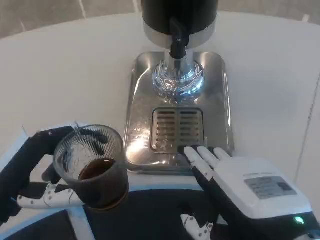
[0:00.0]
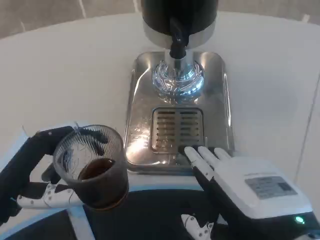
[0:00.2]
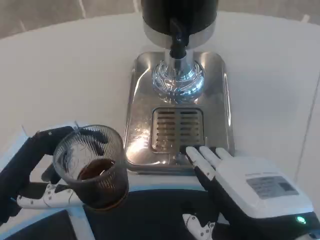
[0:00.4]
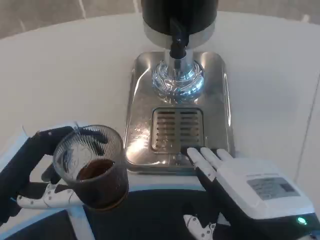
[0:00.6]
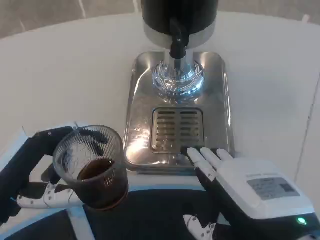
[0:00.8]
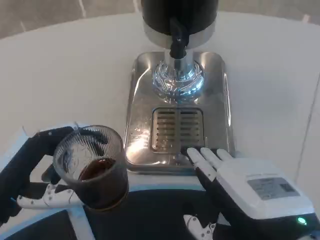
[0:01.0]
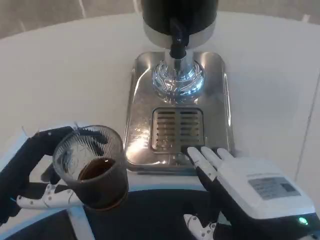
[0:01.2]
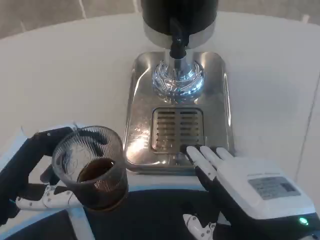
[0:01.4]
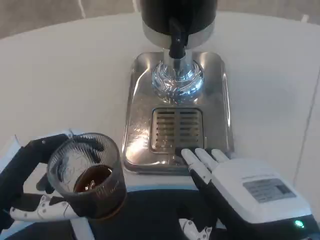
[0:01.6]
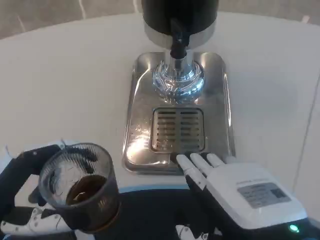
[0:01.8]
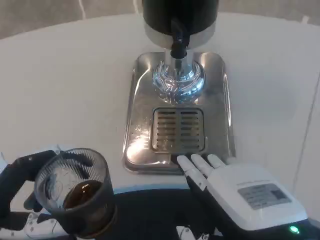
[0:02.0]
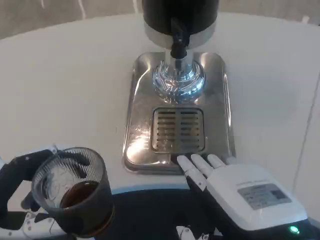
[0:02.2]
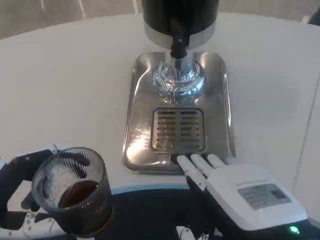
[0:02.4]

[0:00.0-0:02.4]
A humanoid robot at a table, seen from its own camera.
Task of the whole recording: Grasp the cup under the faucet to collect the drink, then remove the cup.
0:00.0 to 0:01.2: Both hands stay put.
0:01.2 to 0:02.4: The hands stay close to where they were, moving slightly.

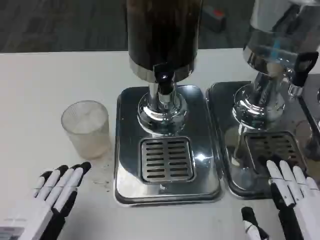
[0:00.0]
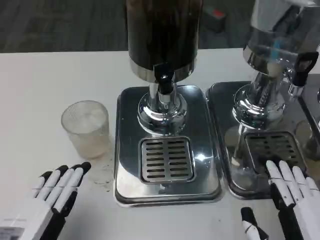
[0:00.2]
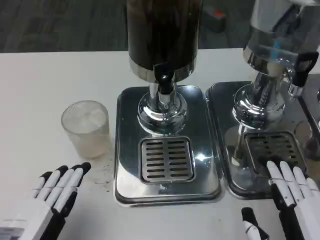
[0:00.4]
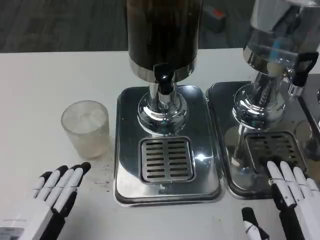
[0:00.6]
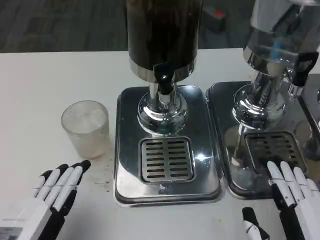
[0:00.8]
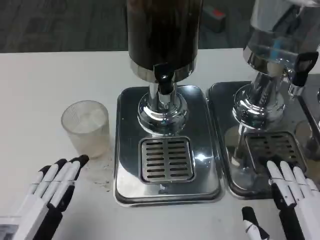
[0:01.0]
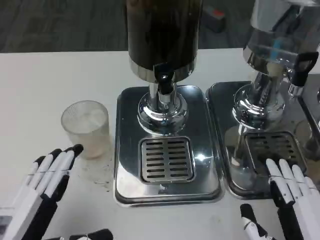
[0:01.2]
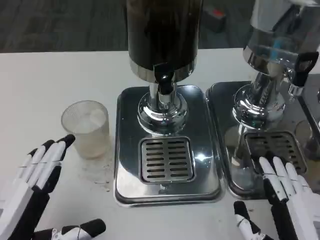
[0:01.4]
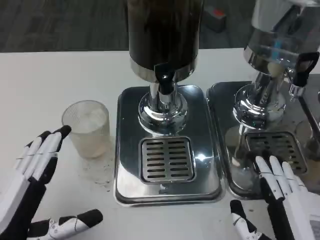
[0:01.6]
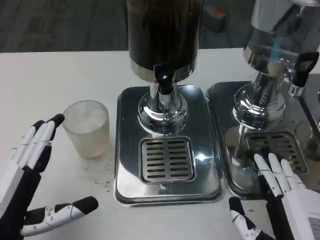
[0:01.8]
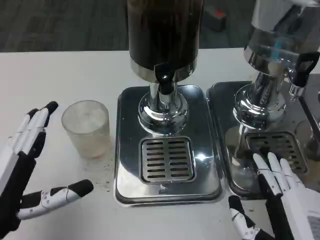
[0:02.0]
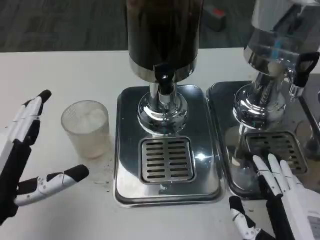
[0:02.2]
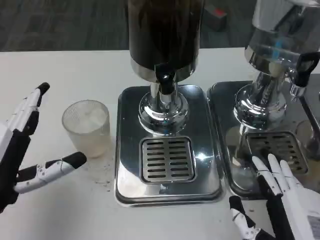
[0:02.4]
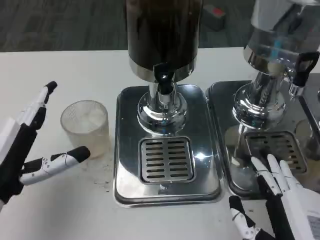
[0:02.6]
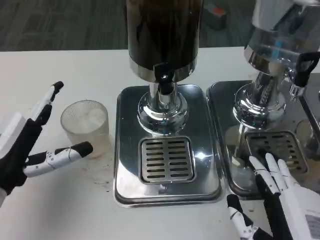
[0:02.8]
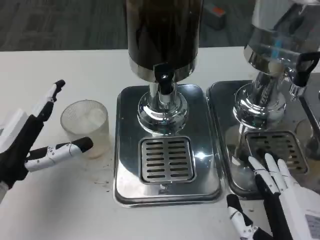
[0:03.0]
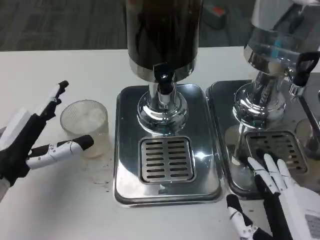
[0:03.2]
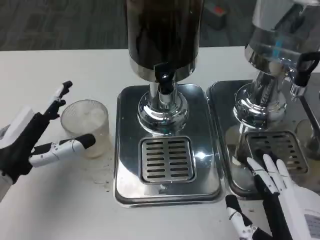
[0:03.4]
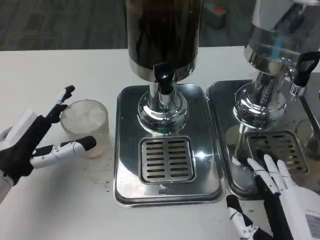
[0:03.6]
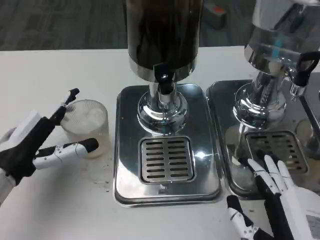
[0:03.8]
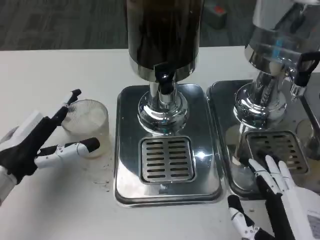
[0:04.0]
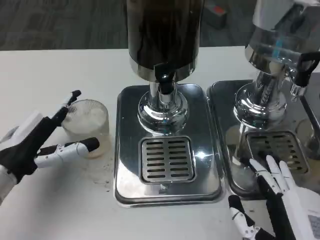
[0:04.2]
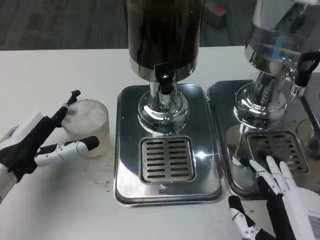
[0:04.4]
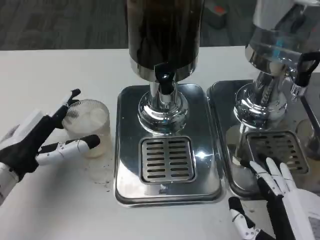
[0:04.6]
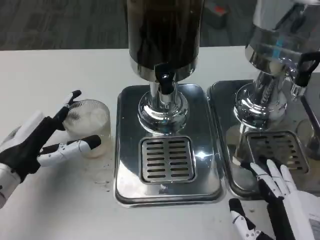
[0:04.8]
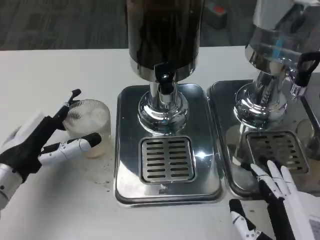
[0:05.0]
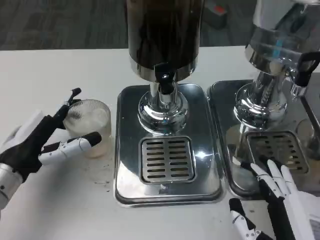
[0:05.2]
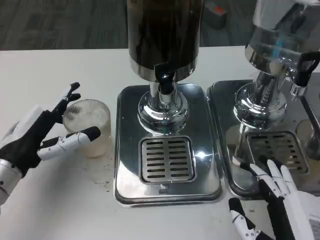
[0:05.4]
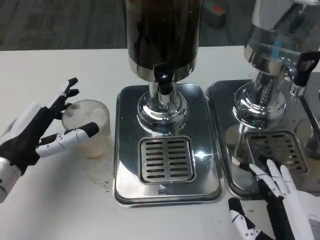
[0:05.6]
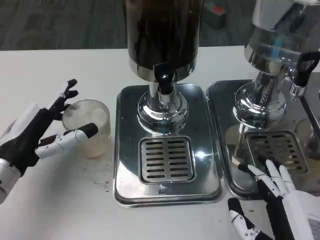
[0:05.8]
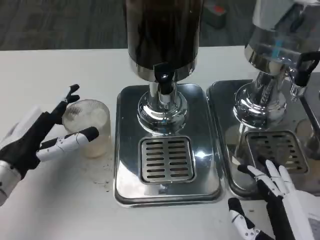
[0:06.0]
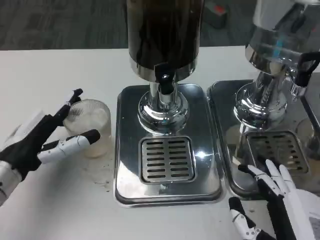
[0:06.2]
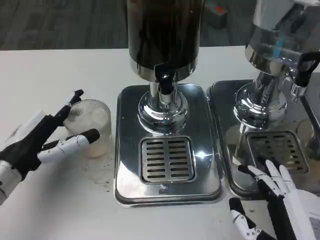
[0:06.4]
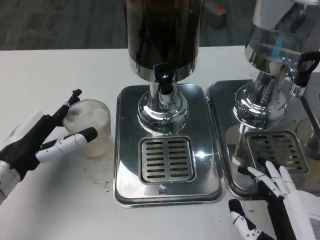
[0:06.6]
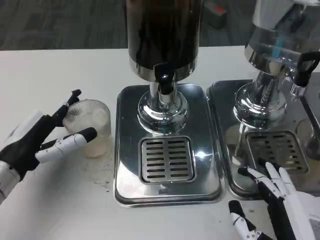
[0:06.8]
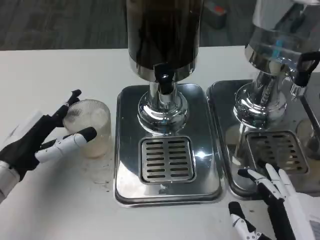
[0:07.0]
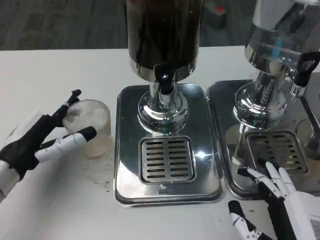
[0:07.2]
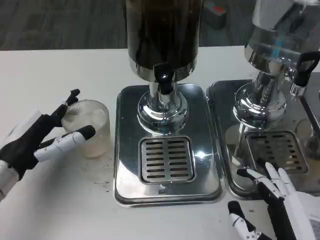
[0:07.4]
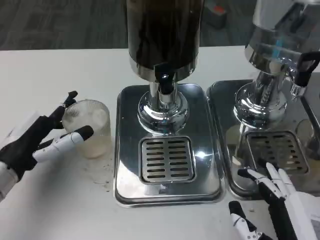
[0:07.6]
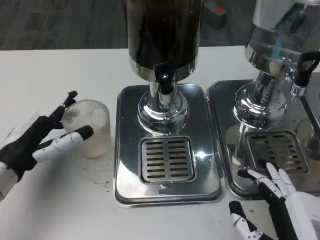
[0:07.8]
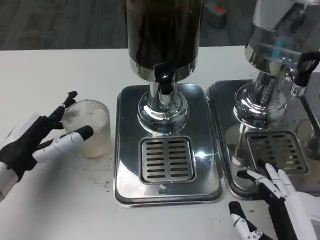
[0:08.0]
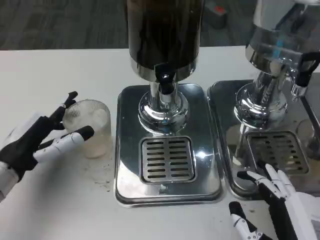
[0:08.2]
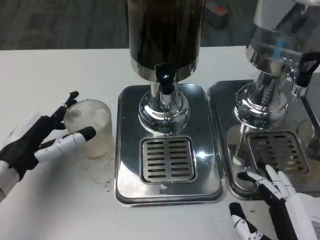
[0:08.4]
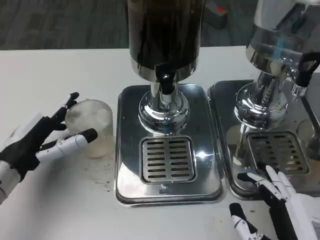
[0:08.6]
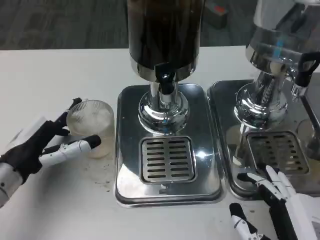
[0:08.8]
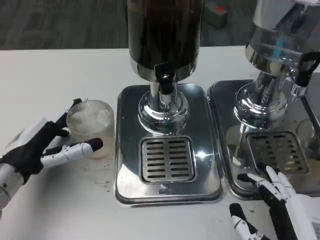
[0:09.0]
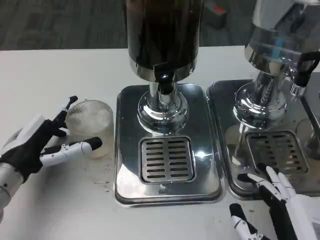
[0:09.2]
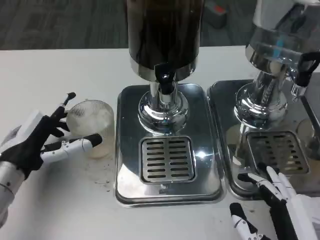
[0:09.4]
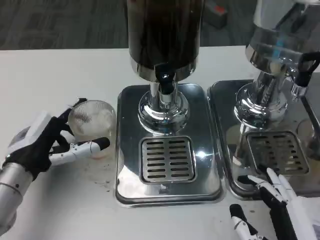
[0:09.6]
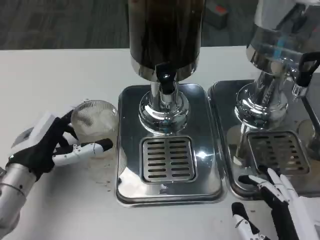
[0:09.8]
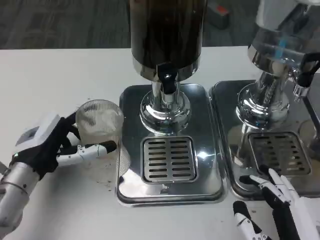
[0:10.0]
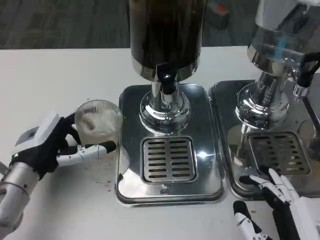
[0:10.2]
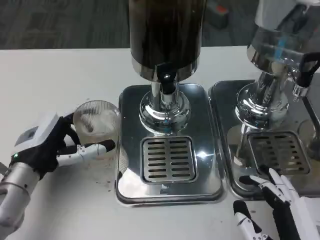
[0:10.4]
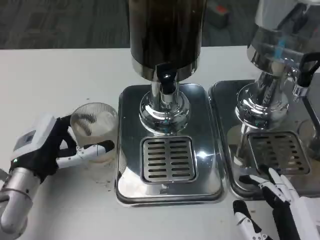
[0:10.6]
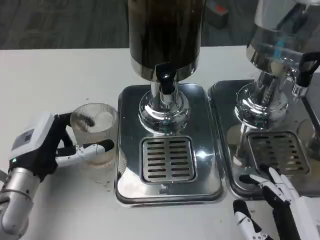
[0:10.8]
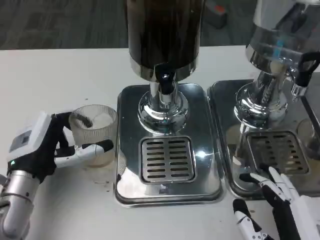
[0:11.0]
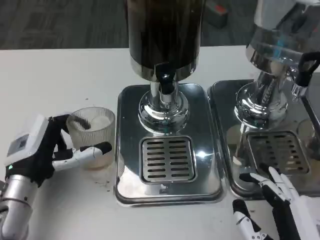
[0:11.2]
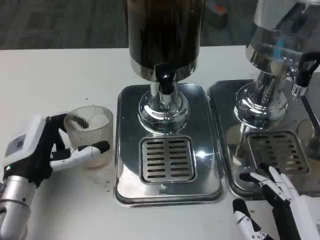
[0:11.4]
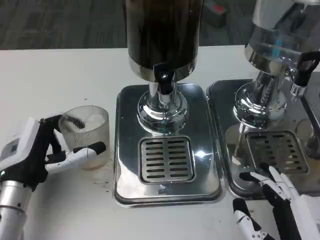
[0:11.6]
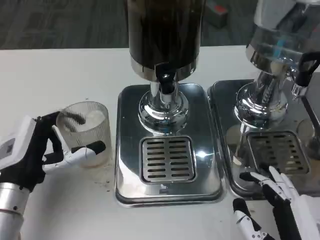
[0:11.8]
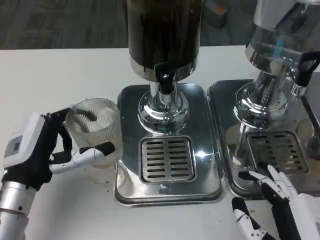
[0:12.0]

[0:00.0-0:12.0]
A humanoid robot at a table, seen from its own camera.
Task of the whole recording: Grasp the cup under the faucet to collect the drink, then remove the cup.
0:00.0 to 0:01.6: The hands stay close to where they were, moving slightly.
0:01.6 to 0:03.0: The left hand shifts approximately 10 cm forward.
0:03.0 to 0:12.0: The hands make only small movements.

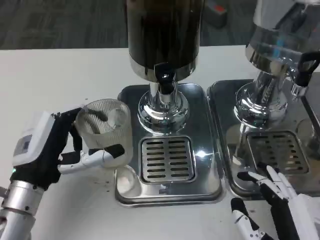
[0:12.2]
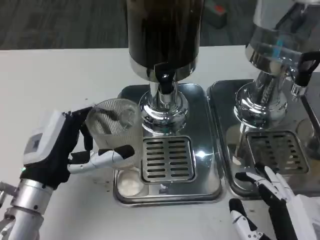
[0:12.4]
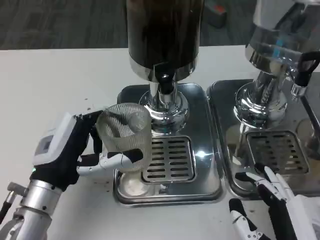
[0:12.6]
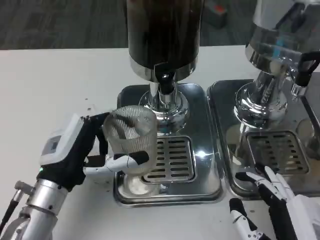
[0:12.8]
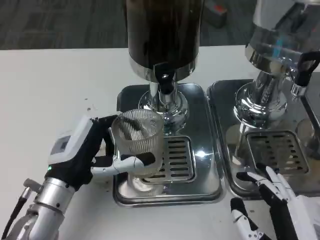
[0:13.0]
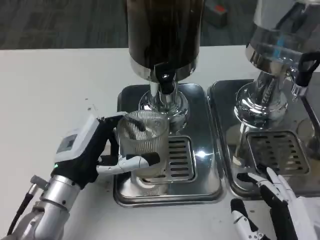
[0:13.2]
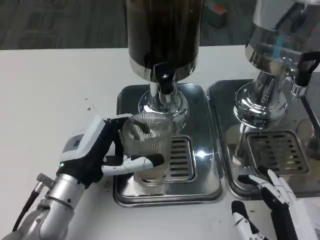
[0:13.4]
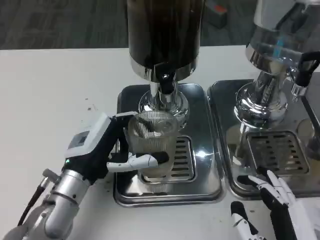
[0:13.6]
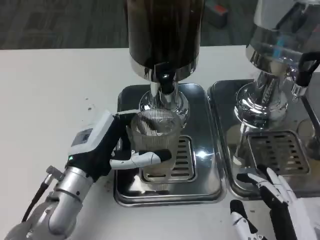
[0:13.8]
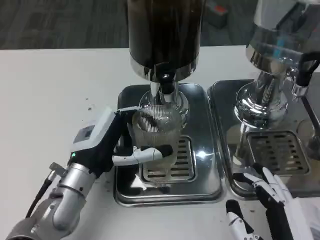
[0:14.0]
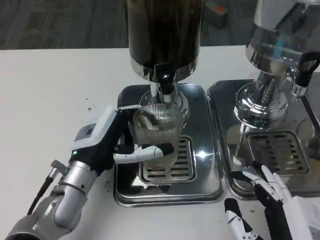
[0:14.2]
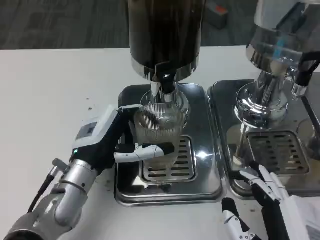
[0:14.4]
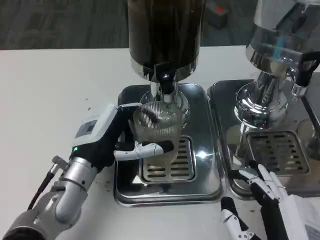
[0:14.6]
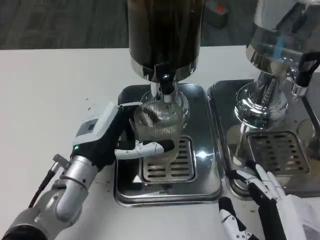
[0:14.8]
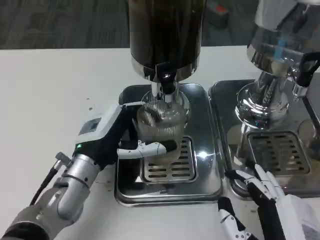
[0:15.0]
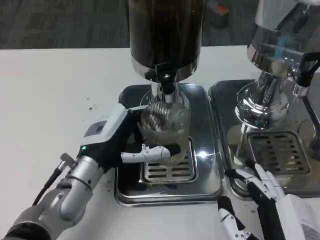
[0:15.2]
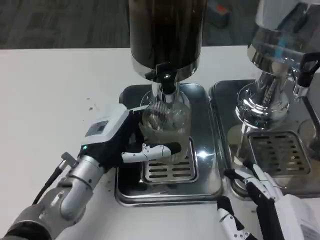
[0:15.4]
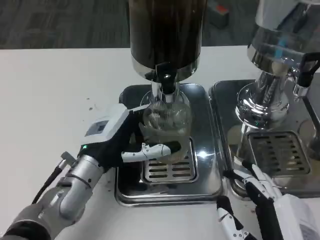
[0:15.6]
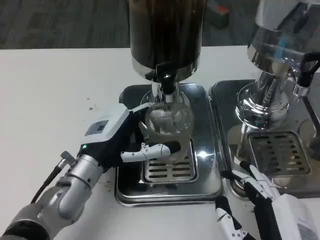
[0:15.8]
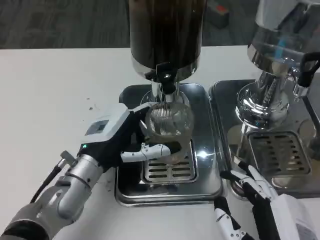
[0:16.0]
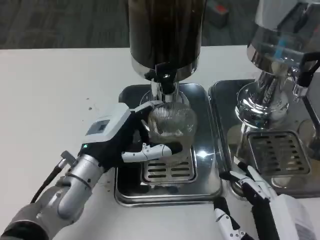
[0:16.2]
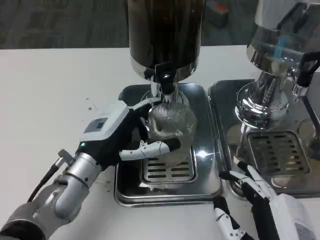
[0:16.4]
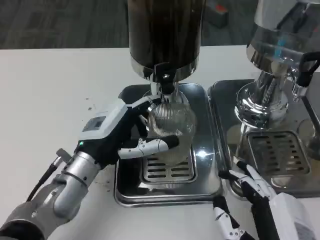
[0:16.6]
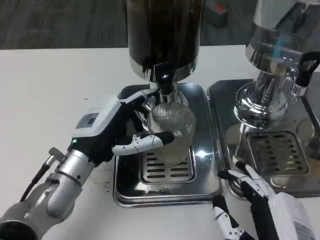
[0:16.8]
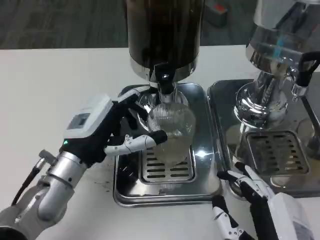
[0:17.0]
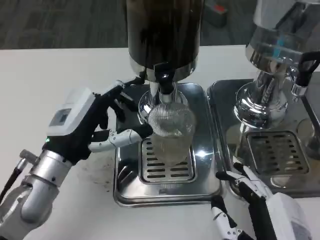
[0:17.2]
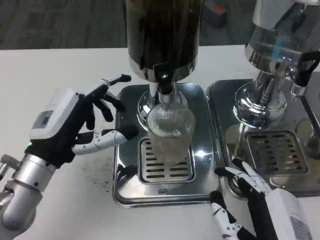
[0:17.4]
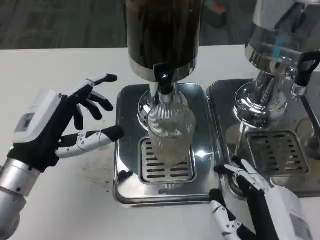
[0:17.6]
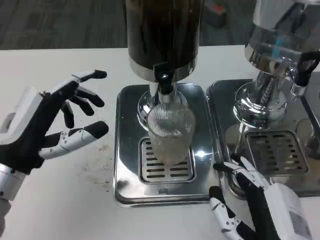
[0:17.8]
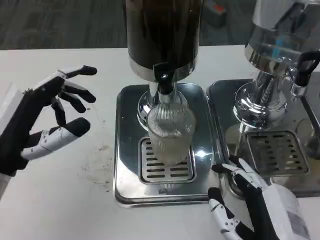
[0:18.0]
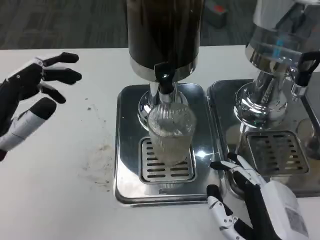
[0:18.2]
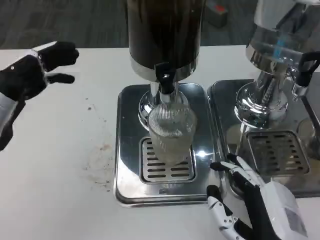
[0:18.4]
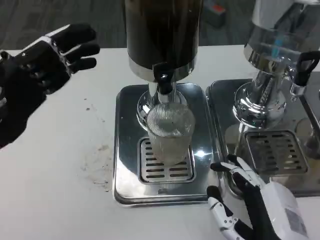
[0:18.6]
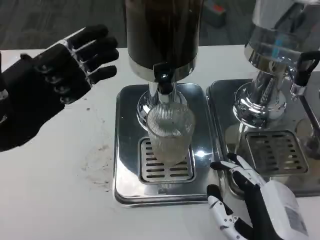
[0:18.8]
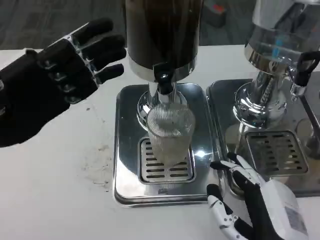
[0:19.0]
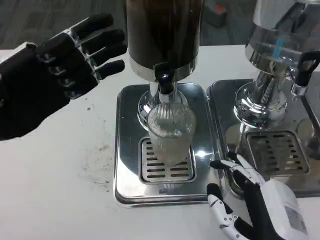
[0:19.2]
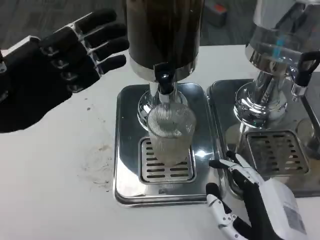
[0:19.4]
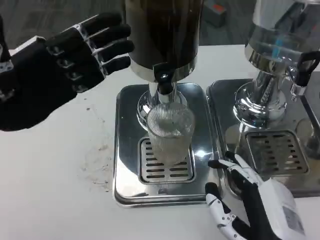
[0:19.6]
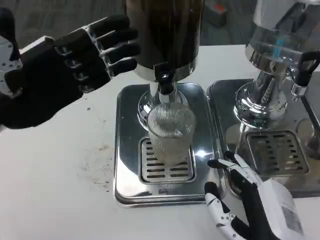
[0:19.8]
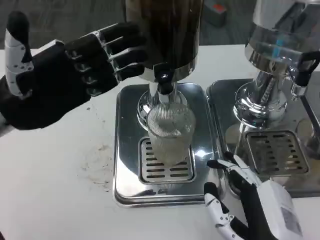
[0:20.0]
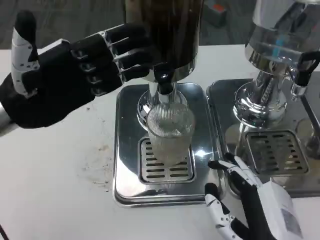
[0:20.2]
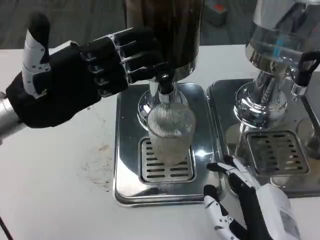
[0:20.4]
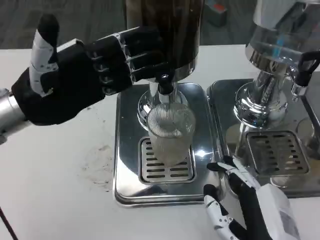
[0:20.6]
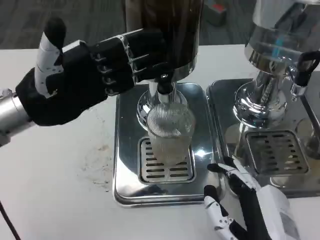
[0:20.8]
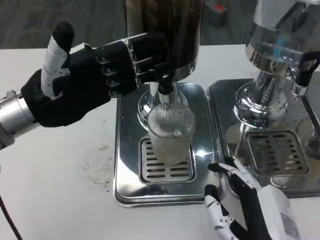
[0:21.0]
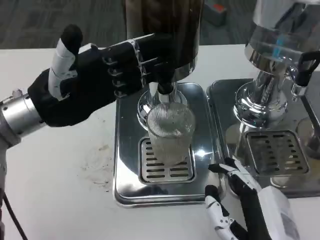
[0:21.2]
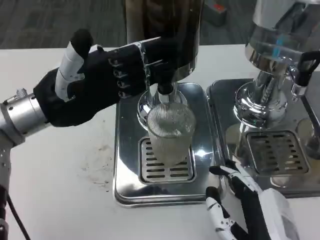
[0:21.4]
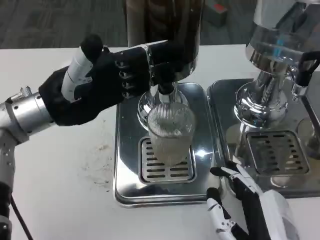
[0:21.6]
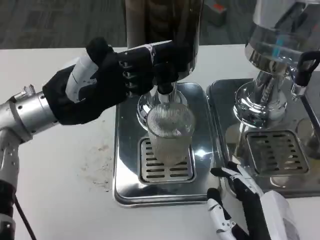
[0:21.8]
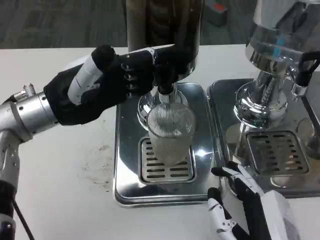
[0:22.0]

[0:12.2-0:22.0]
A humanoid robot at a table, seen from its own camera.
Task of the whole recording: Grasp the cup under the faucet to collect the drink, then remove the cup.
0:12.2 to 0:13.6: The left hand moves to the right, some 5 cm.
0:13.6 to 0:16.4: The hands make only small movements.
0:16.4 to 0:17.8: The left hand goes about 10 cm to the left.
0:17.8 to 0:19.2: The left hand moves upward, approximately 10 cm.
0:19.2 to 0:20.6: The left hand shifts by some 5 cm.
0:20.6 to 0:22.0: The hands move only a little.
